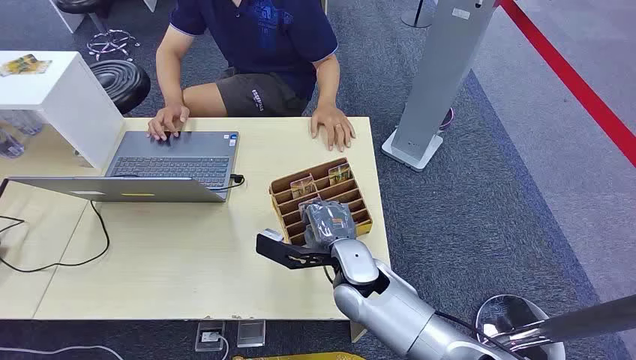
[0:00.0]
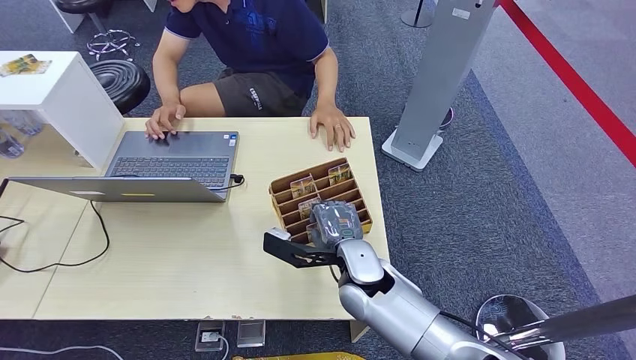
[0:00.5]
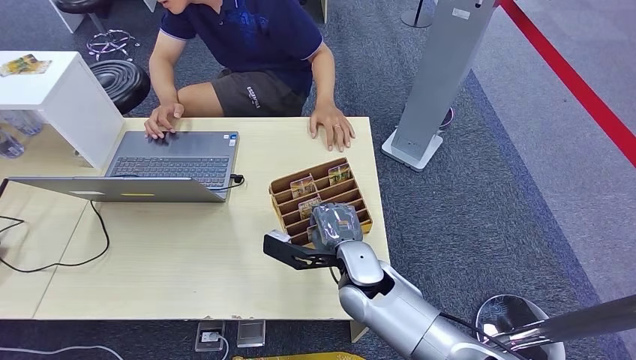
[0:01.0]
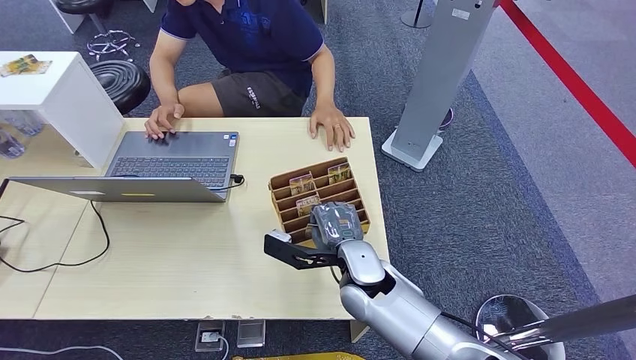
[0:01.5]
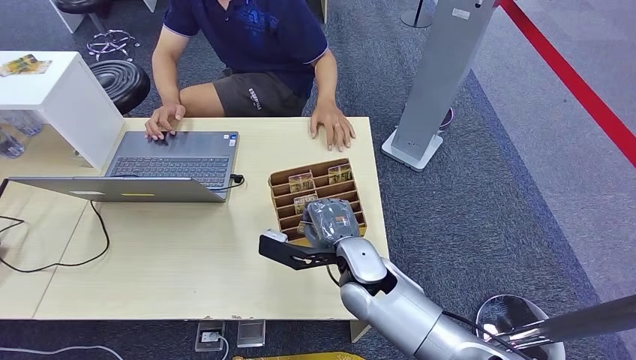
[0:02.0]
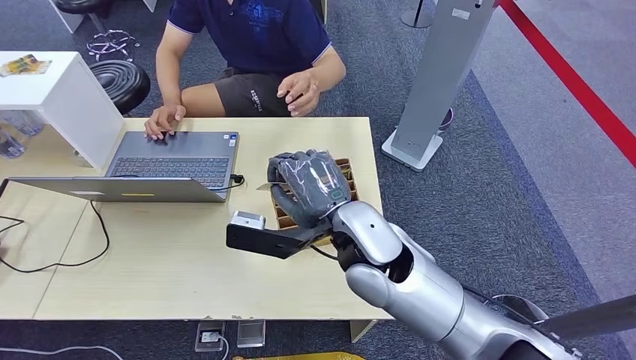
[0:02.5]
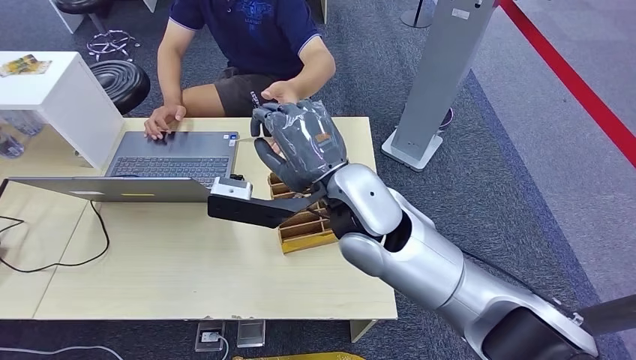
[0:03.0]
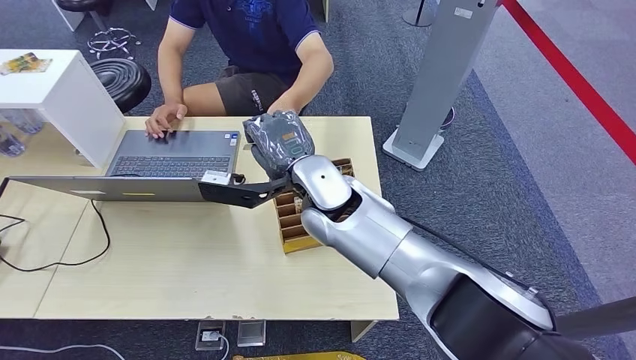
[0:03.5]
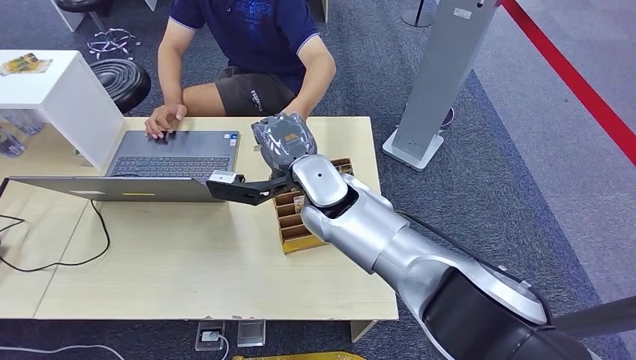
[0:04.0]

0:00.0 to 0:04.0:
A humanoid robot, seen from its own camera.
Step, 0:00.0 to 0:02.0: Pick up the room card from the card holder.
Step, 0:03.0 to 0:04.0: Hand the room card to the target.
0:02.0 to 0:04.0: The right hand travels upward, forward and to the left by about 15 cm.

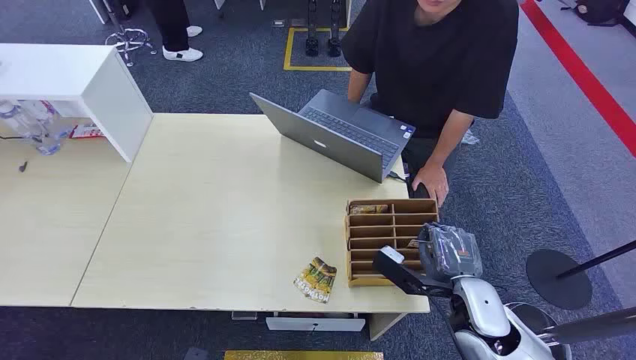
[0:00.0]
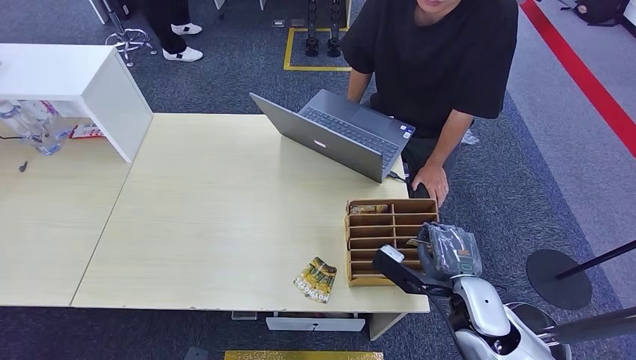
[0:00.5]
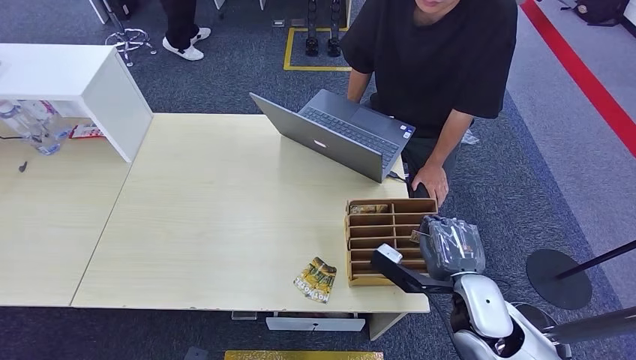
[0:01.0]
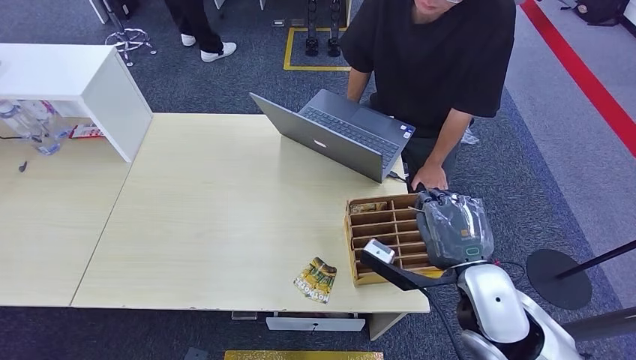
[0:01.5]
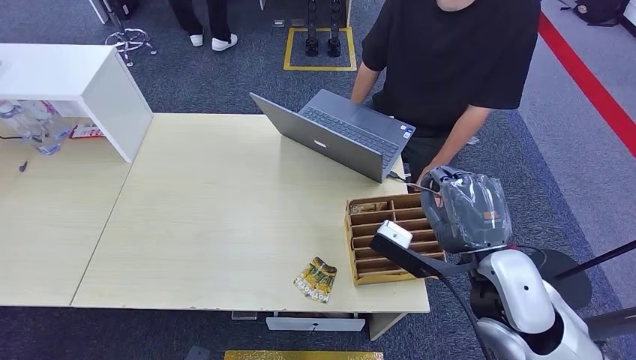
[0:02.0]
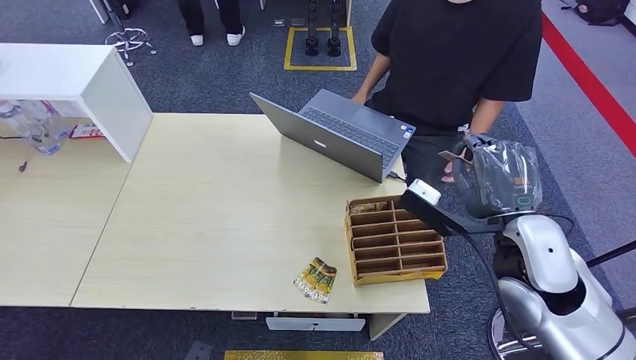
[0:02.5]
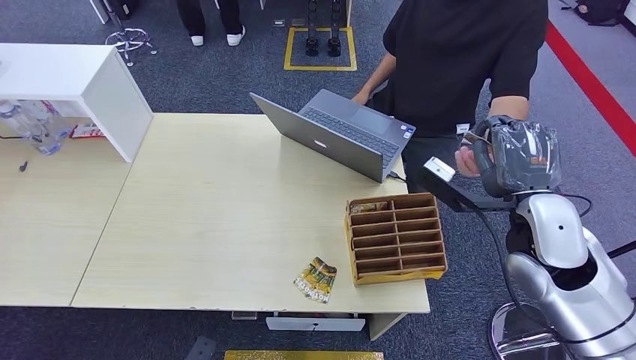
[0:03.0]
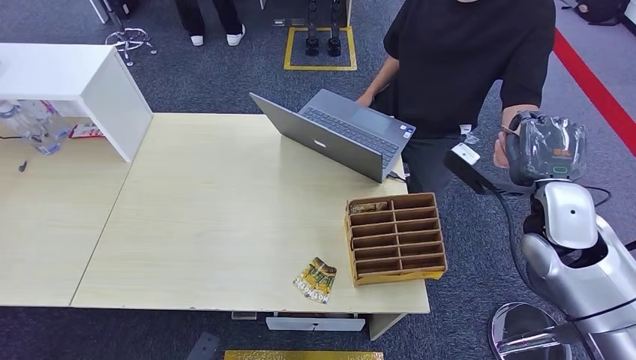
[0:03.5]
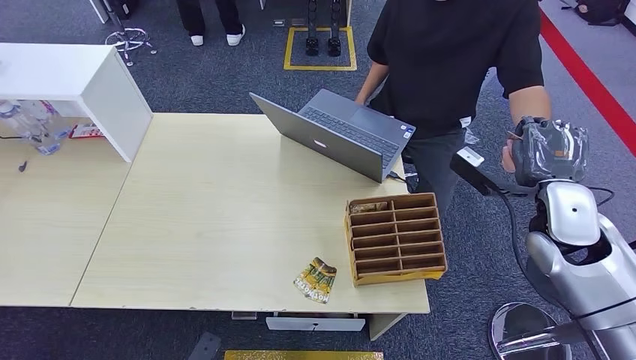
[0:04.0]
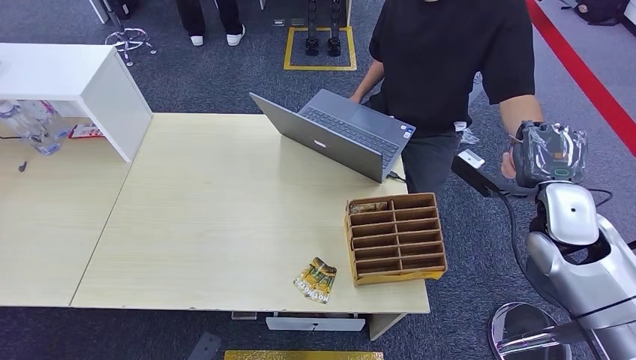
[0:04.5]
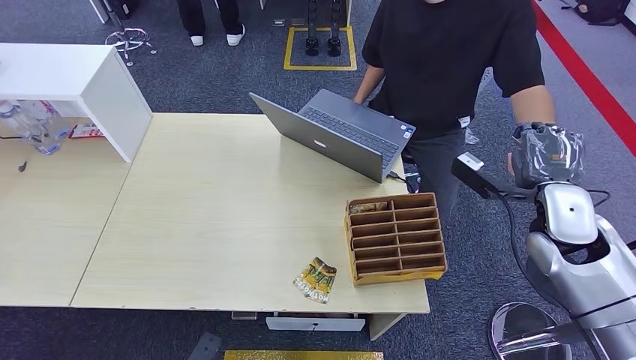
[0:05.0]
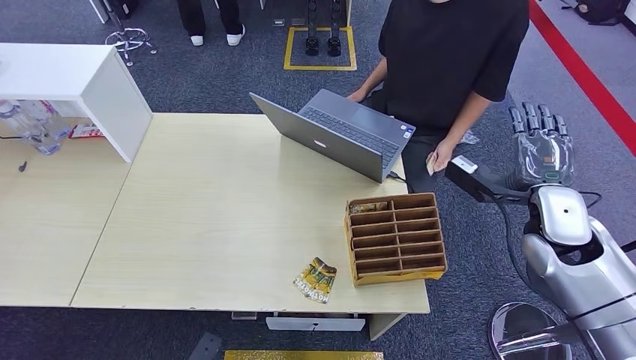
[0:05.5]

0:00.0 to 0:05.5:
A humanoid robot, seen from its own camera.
Step, 0:00.0 to 0:02.0: Pick up the room card from the card holder.
Step, 0:02.5 to 0:05.5: Hand the room card to the target.
0:02.0 to 0:03.5: The right hand shifts roughly 15 cm to the right and forward.
0:03.5 to 0:05.5: The hands stay close to where they were, moving slightly.
